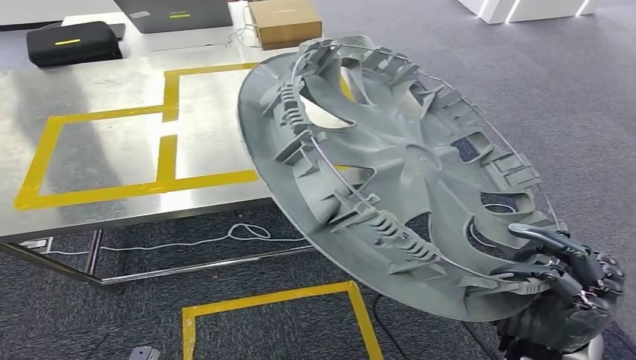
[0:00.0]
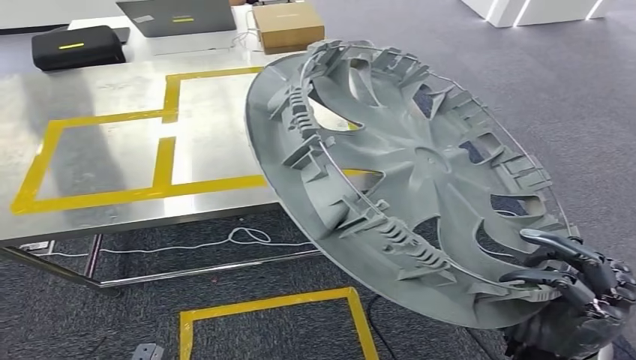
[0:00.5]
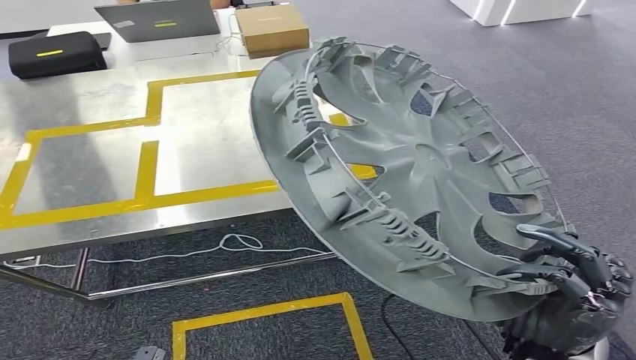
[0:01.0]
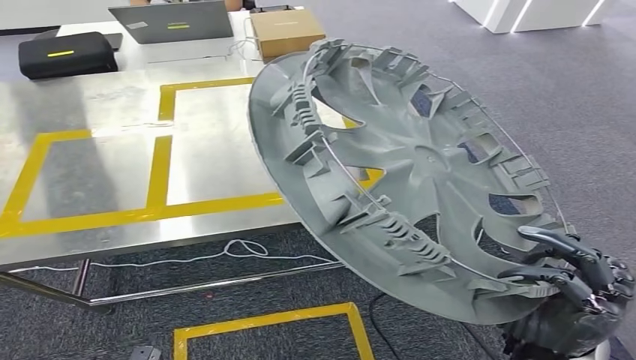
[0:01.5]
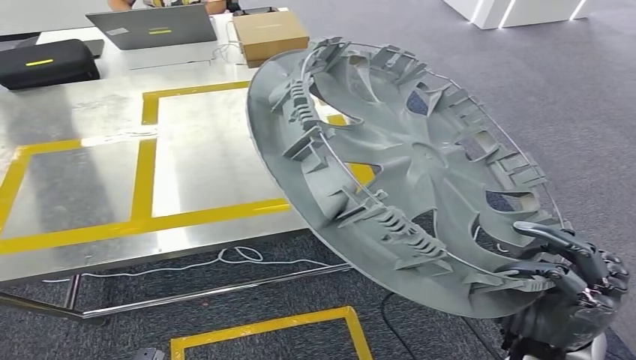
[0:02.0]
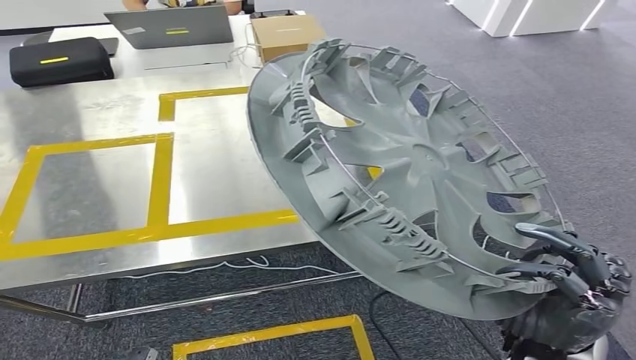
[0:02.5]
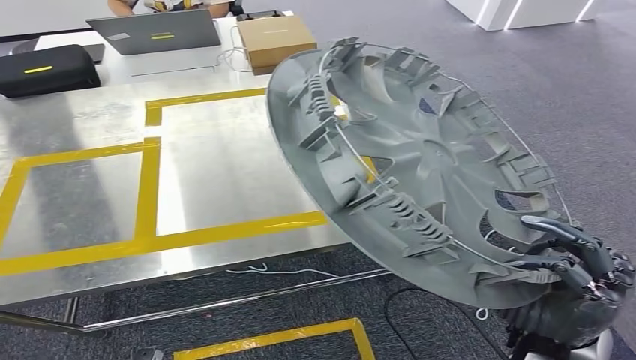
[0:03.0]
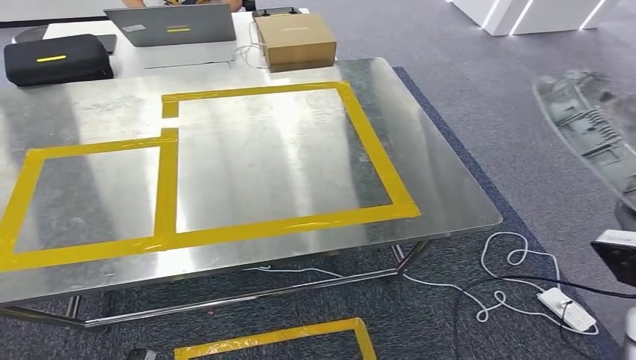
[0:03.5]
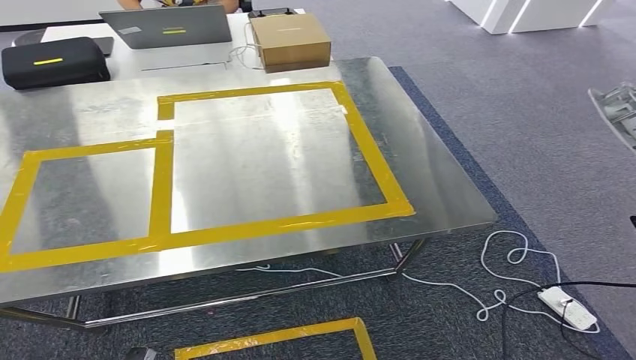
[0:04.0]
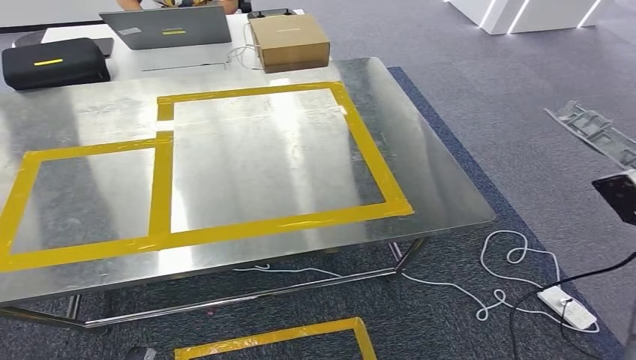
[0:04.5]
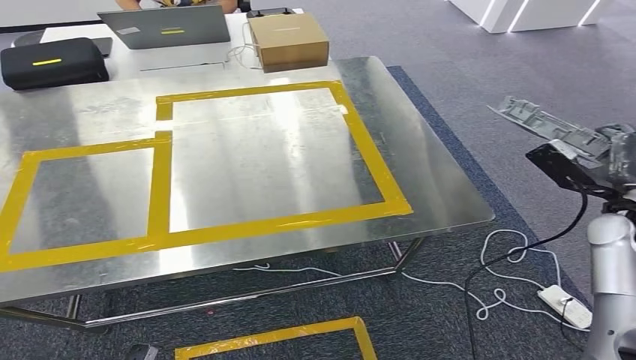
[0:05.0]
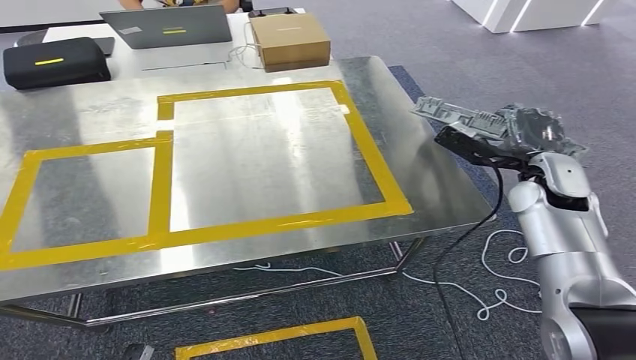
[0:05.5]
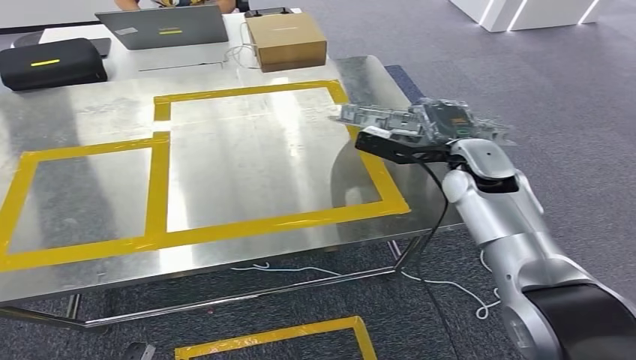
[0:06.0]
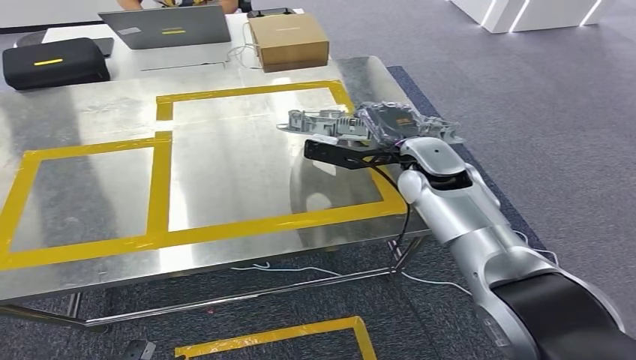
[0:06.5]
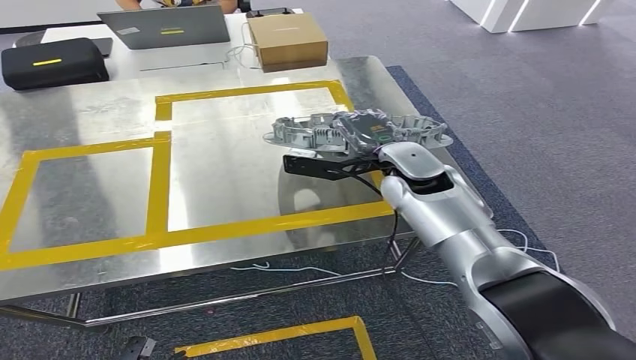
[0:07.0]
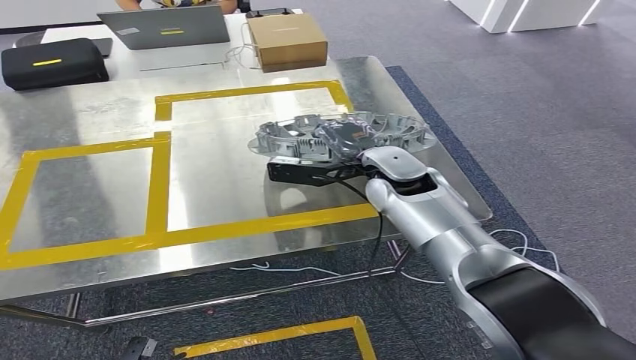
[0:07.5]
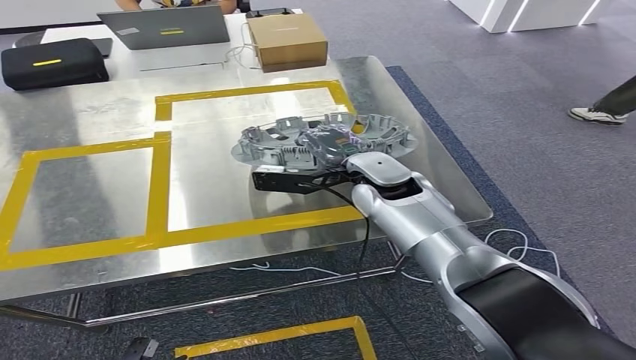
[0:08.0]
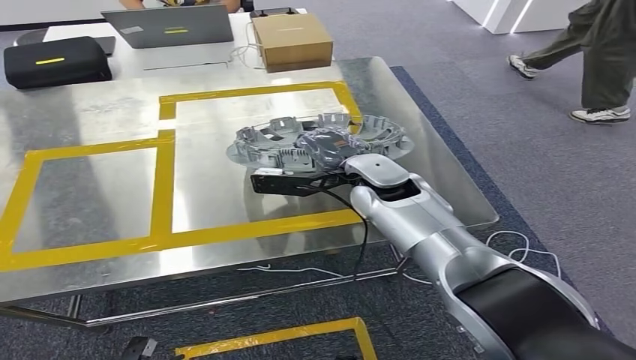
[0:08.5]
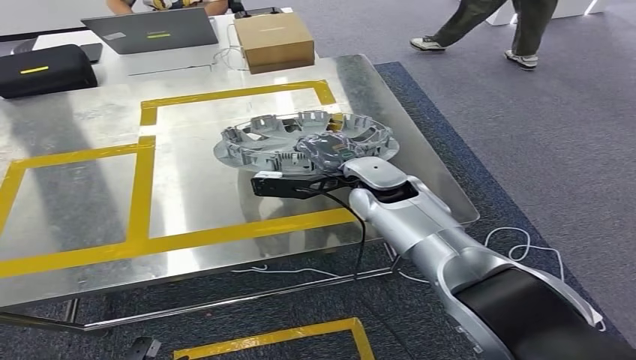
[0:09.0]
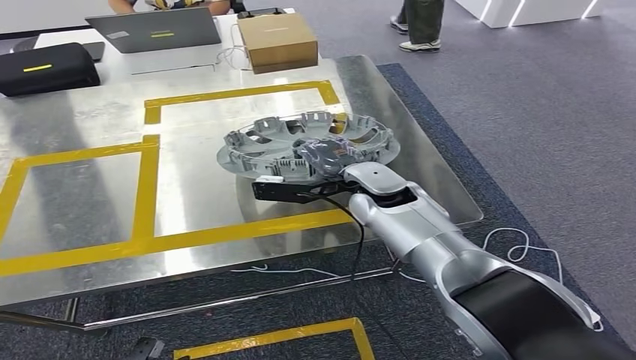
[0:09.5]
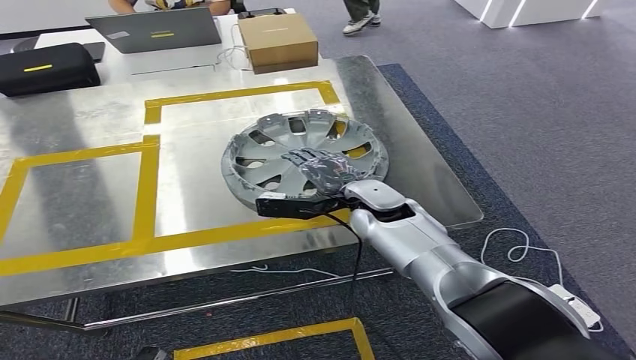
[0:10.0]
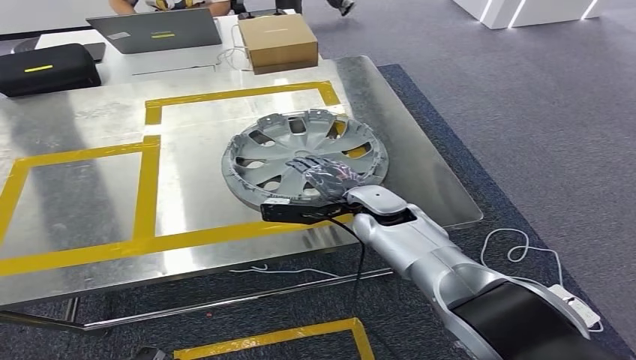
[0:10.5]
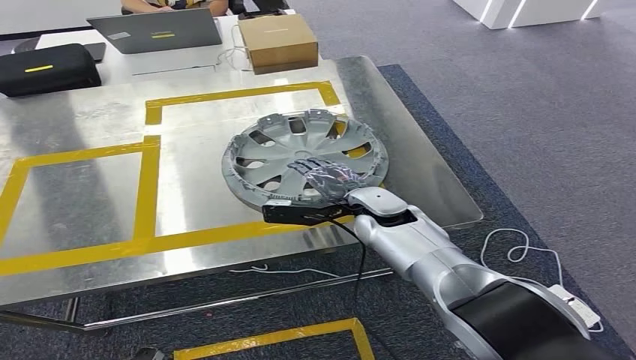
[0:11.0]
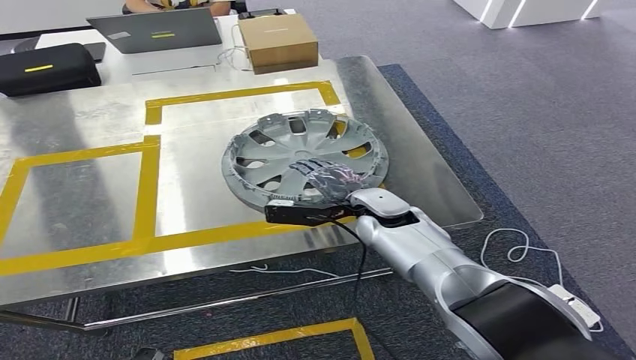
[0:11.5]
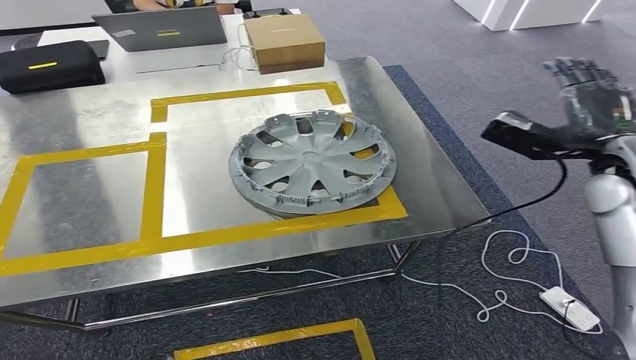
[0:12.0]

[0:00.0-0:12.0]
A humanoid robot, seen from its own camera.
Step, 0:00.0 to 0:03.5: Move the small component to the workbench.
0:04.0 to 0:06.0: The right hand moves to the left and forward, about 30 cm.

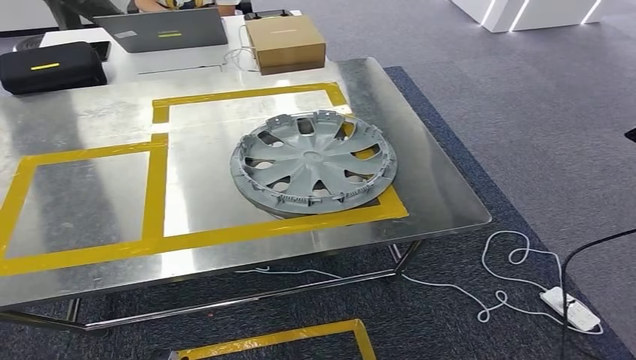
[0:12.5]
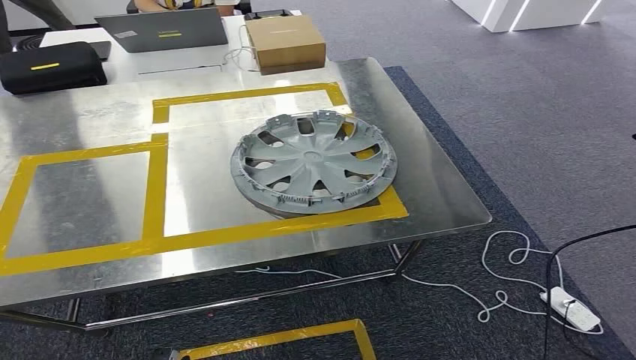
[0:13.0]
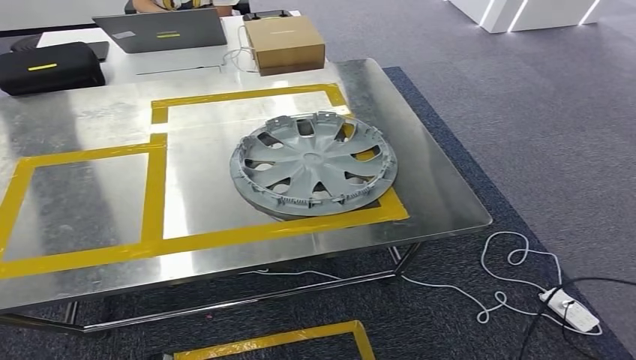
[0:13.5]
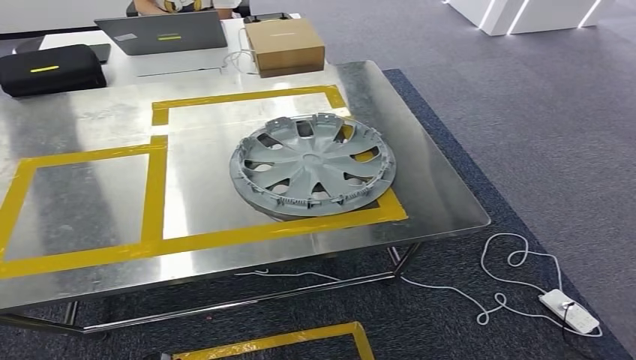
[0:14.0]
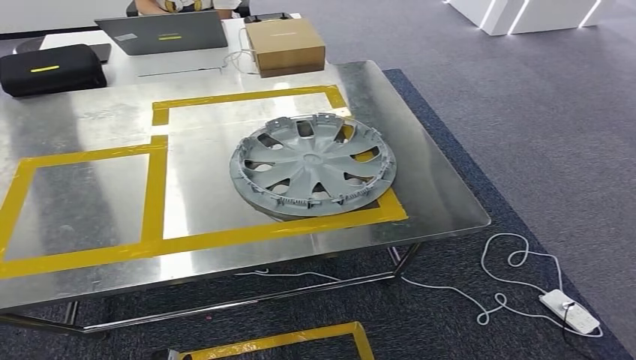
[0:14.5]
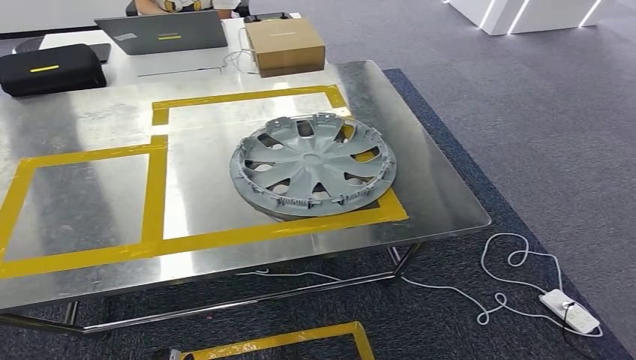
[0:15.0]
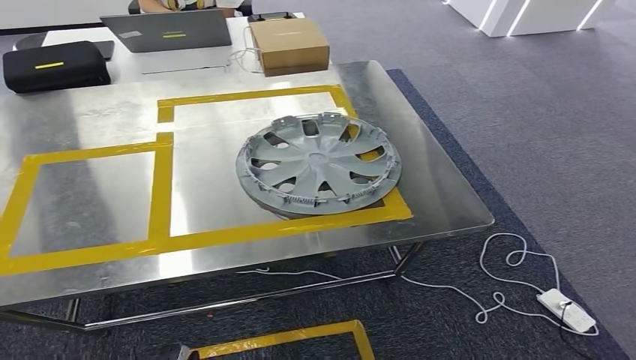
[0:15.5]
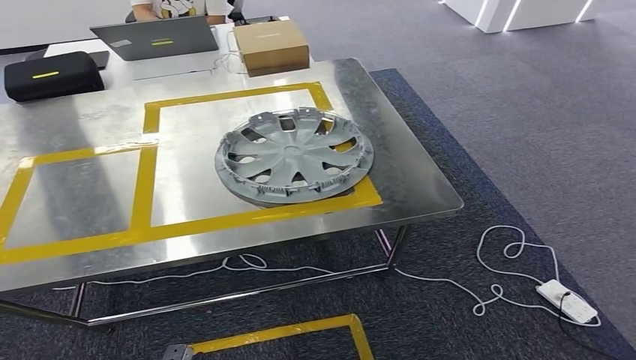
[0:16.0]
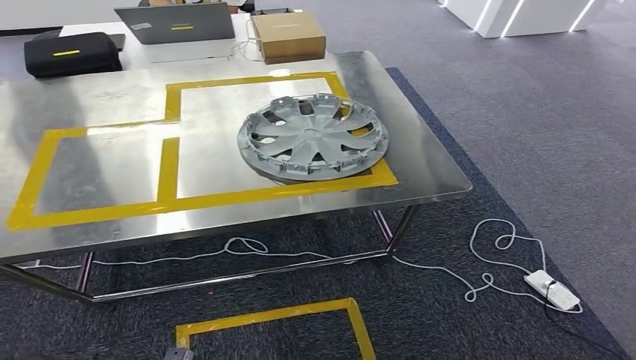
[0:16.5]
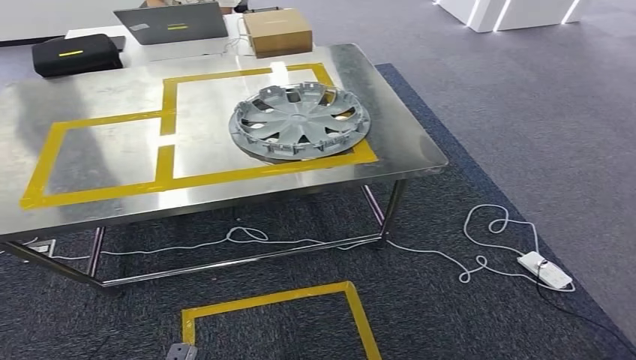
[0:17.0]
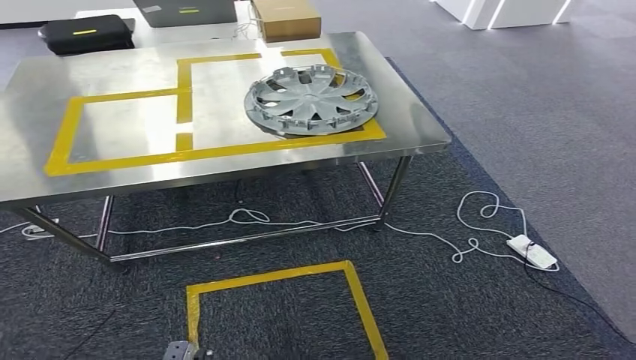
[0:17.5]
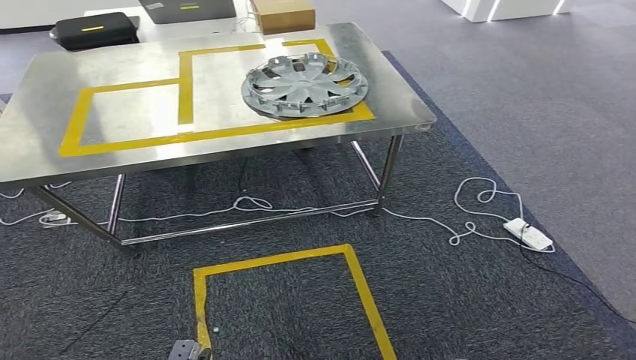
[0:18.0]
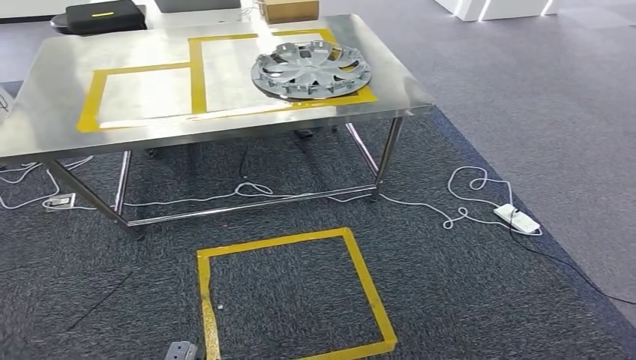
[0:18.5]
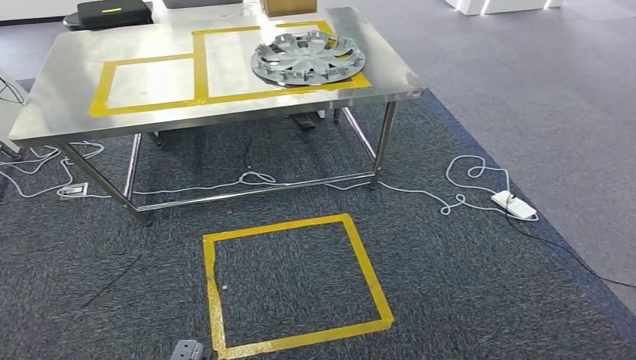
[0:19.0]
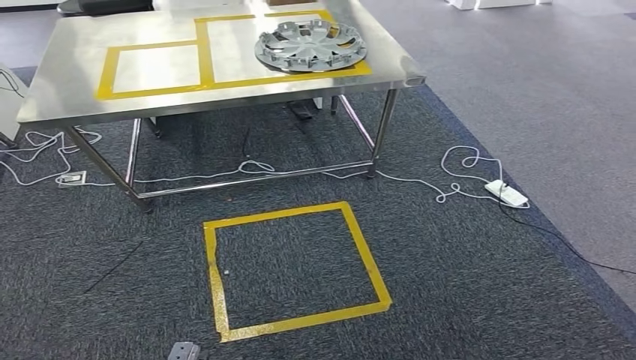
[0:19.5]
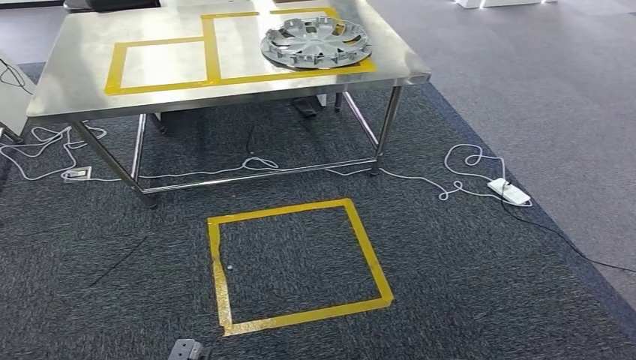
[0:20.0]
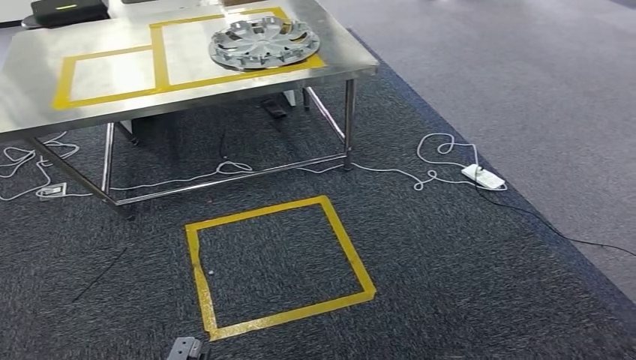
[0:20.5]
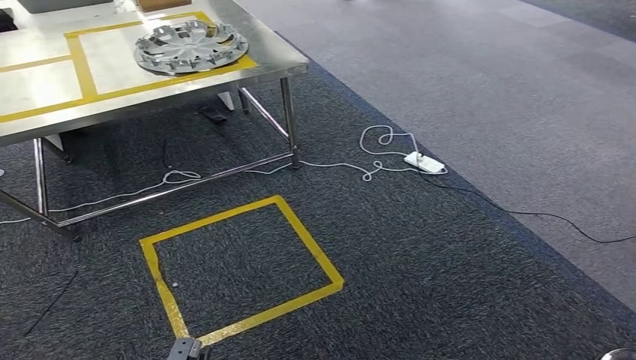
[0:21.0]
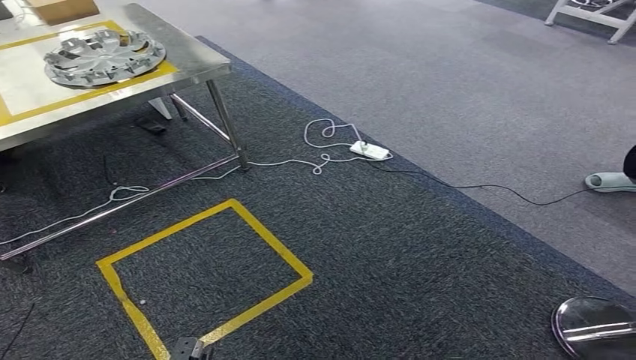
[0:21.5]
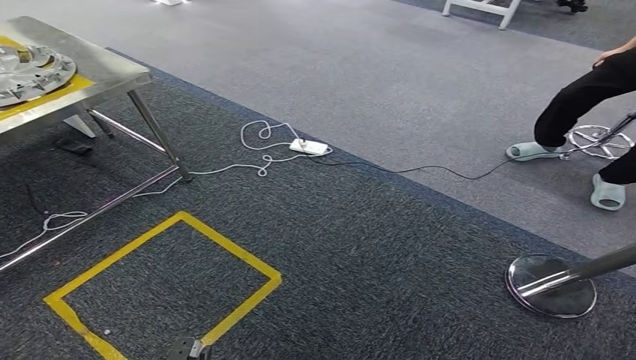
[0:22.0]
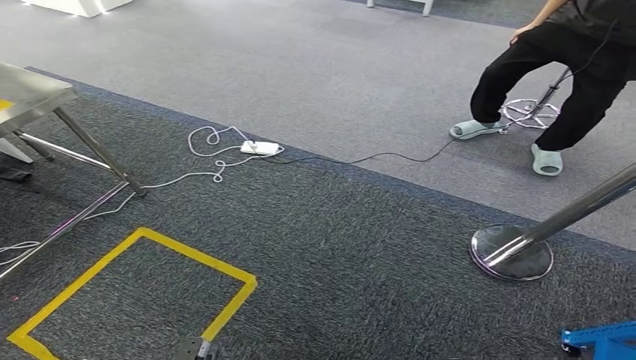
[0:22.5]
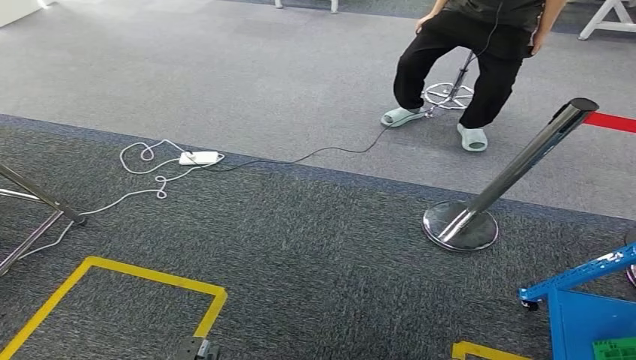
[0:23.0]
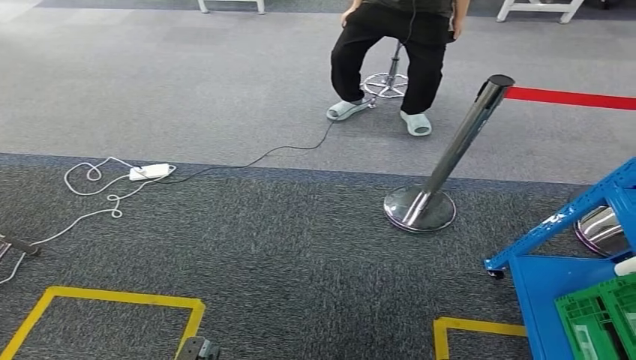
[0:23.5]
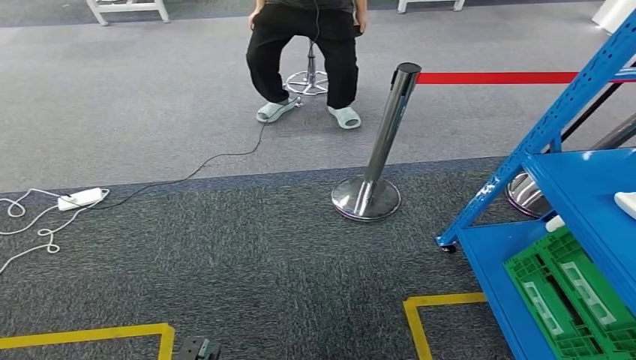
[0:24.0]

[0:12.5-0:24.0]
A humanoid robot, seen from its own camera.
0:12.5 to 0:14.5: The right hand goes about 60 cm downward, backward and to the left.
